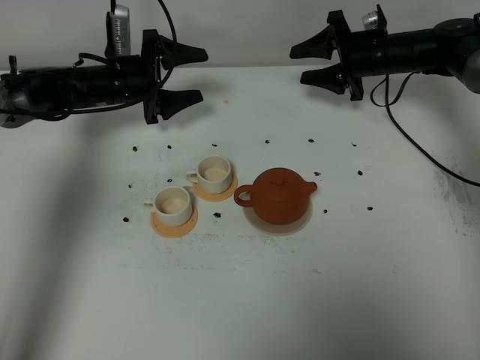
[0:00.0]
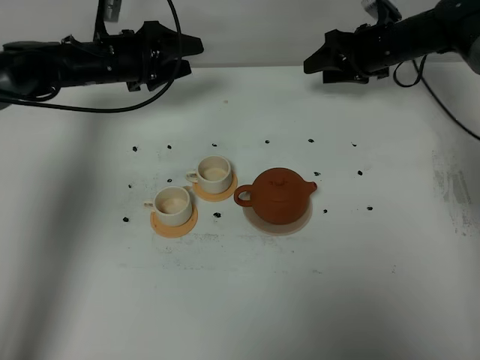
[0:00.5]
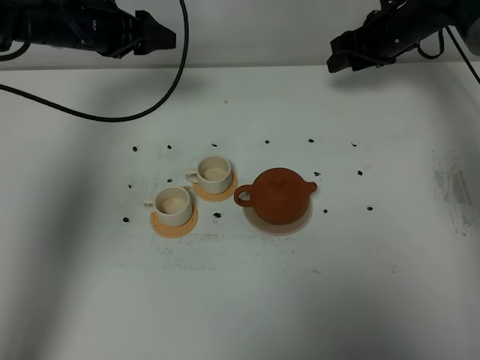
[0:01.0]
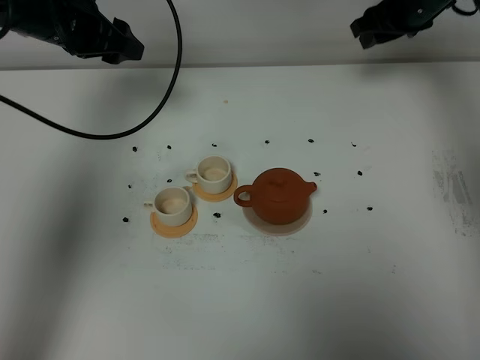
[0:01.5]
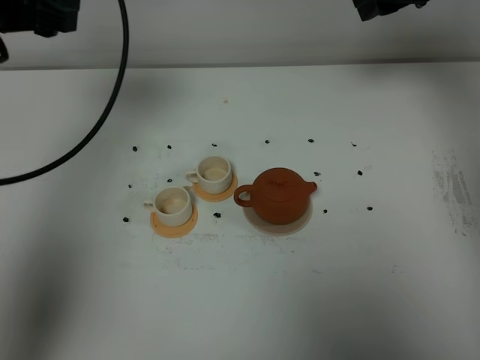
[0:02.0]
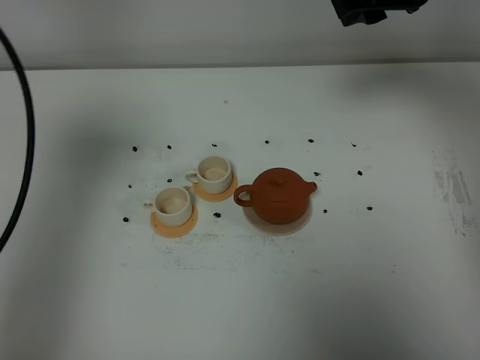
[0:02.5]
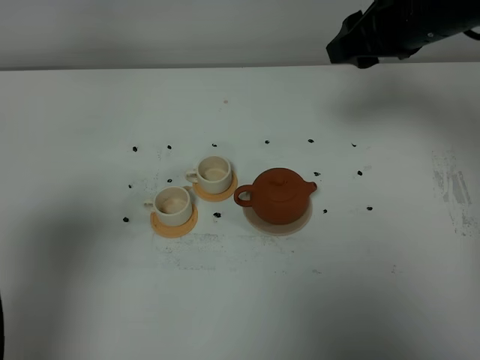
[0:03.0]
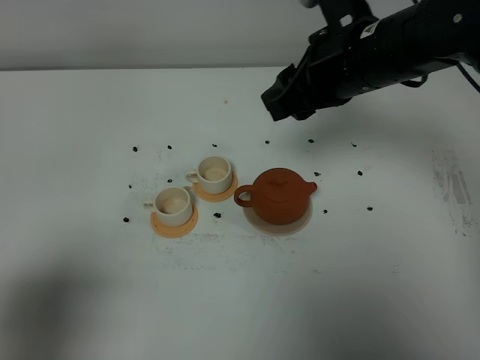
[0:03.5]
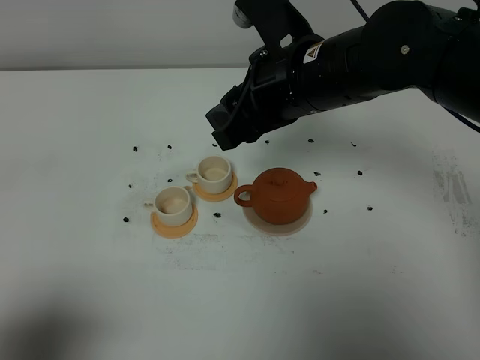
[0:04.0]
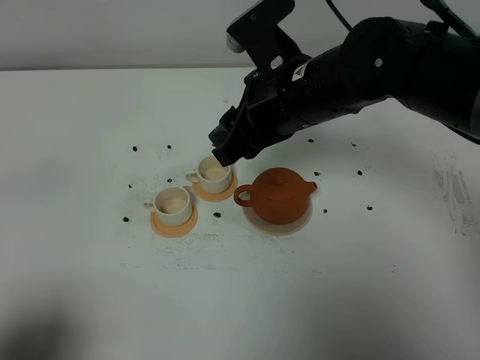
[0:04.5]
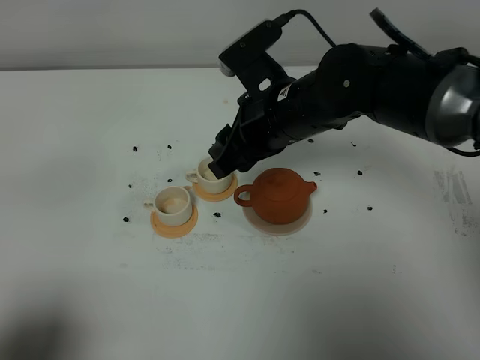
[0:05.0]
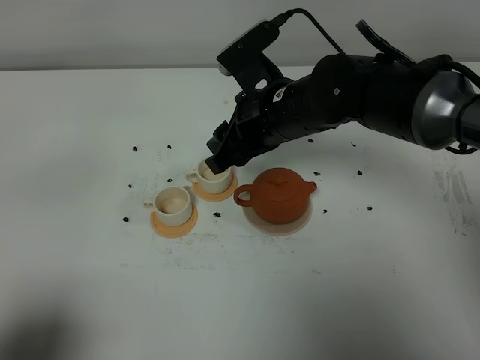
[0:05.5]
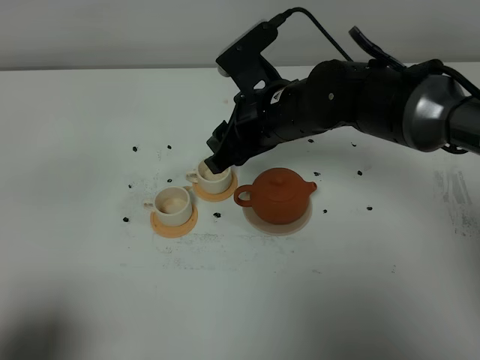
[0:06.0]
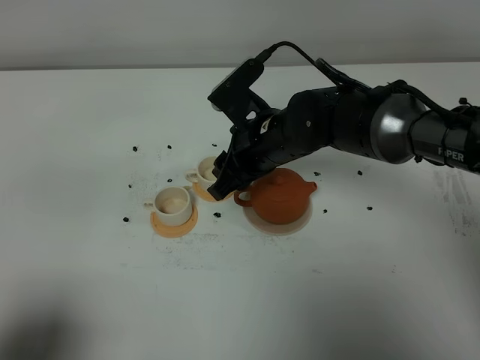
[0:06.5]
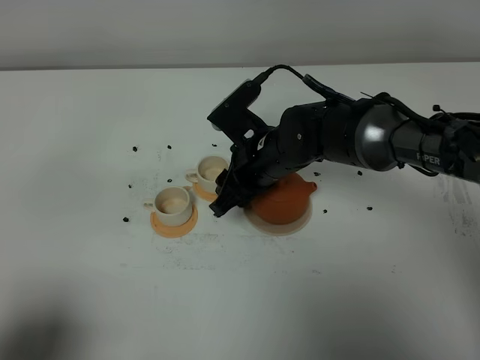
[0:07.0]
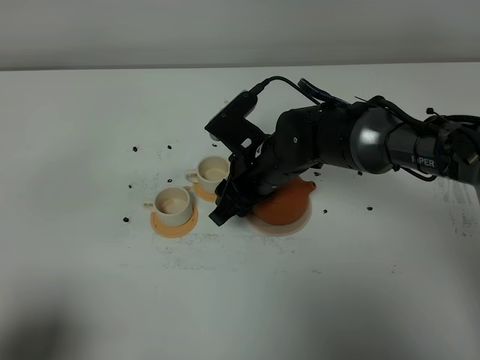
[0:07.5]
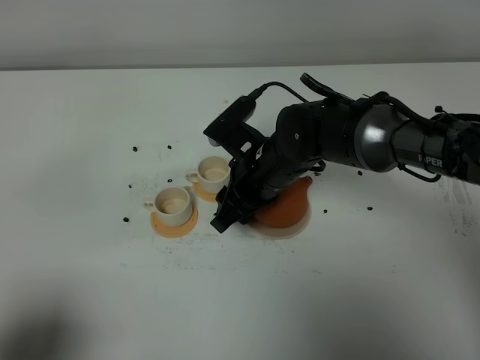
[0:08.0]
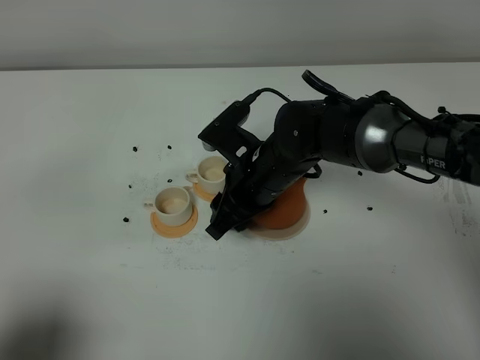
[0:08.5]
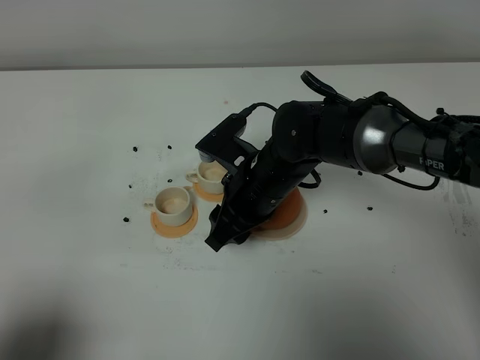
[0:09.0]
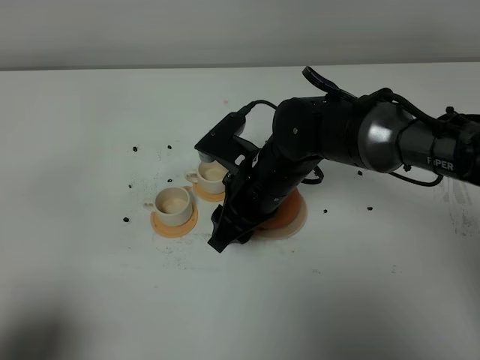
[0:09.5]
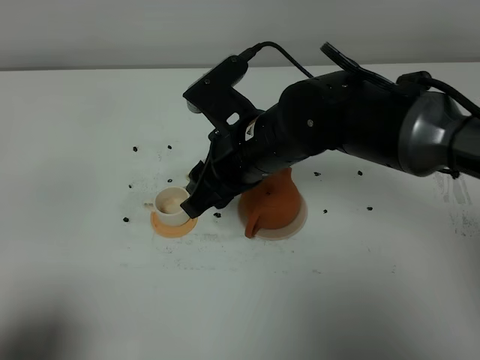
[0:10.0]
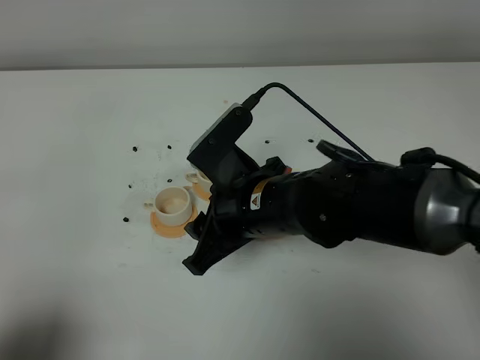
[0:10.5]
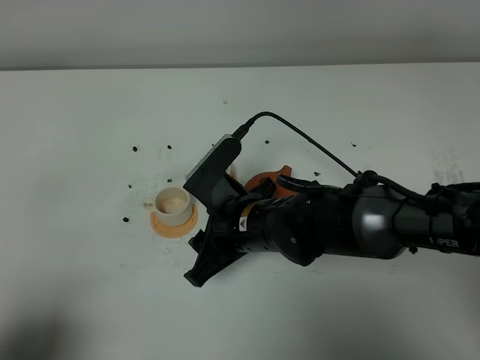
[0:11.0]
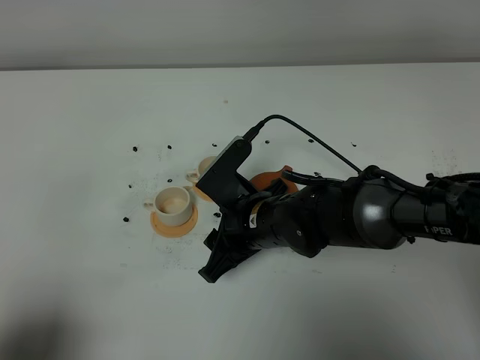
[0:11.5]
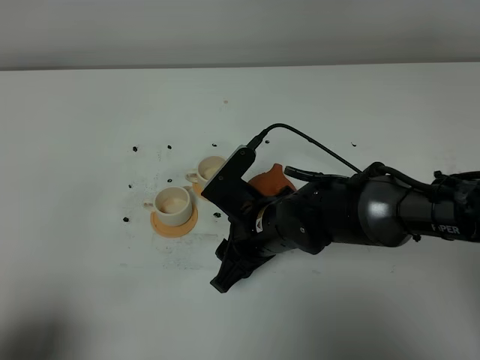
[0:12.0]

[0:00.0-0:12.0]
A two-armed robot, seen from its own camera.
Task of the whole recording: grasp the brown teapot and pour the tea into the two white teacups one by one, put the brown teapot back in its original place.
0:00.0 to 0:02.0: The right gripper is displaced upward by approximately 20 cm, while the left gripper heads upward and backward, covering roughly 30 cm.
0:02.0 to 0:04.0: The right gripper is displaced backward and to the left by roughly 20 cm; the left gripper heads backward, covering some 35 cm, and closes up.
0:04.0 to 0:06.0: The right gripper goes about 10 cm downward.
0:06.0 to 0:08.0: The right gripper is displaced downward by about 5 cm.
0:08.0 to 0:10.0: The right gripper shifts approximately 10 cm upward.
0:10.0 to 0:12.0: The right gripper goes about 10 cm downward.

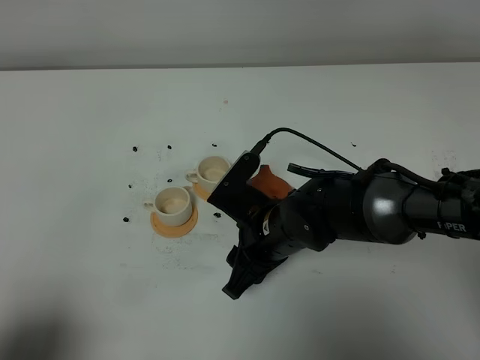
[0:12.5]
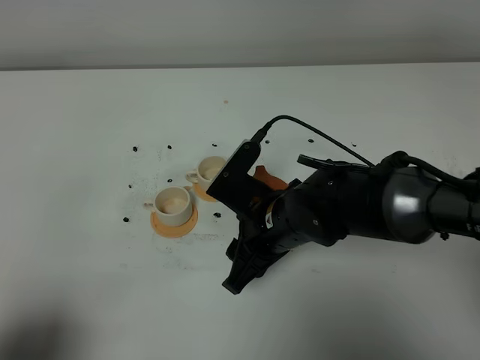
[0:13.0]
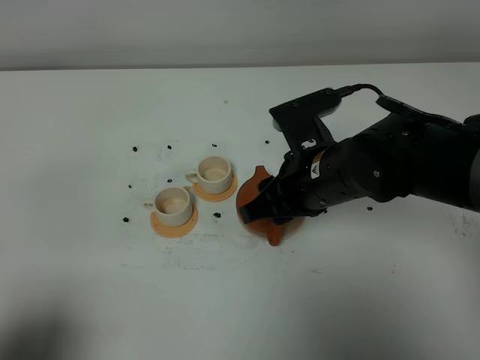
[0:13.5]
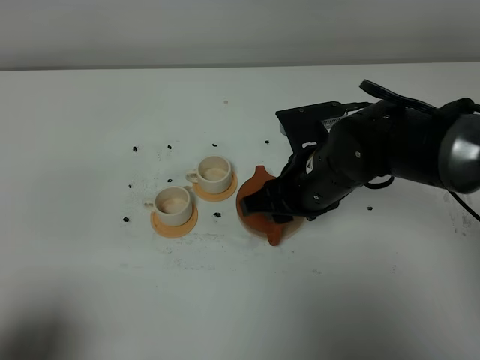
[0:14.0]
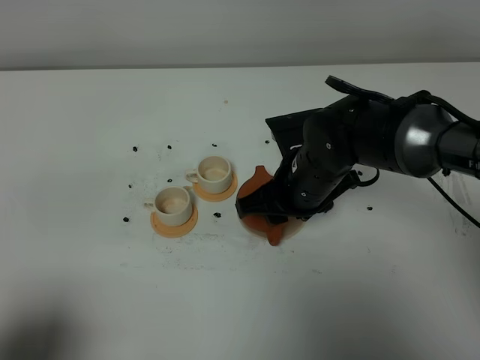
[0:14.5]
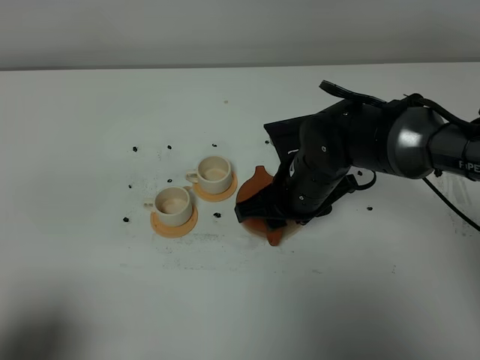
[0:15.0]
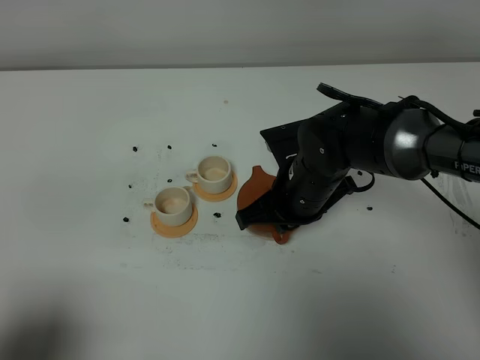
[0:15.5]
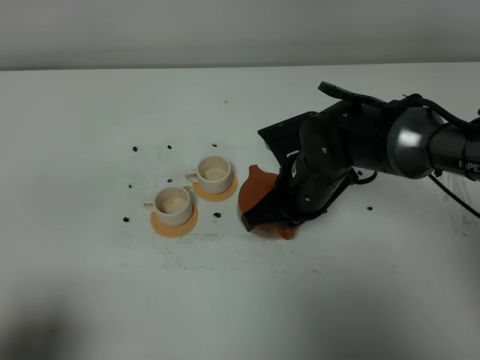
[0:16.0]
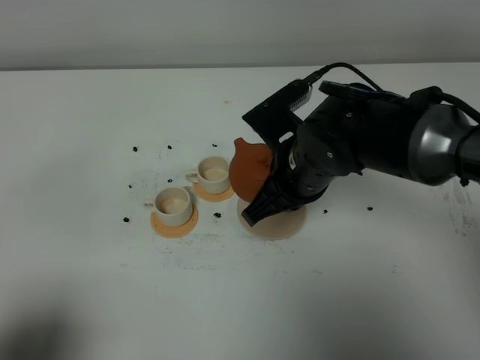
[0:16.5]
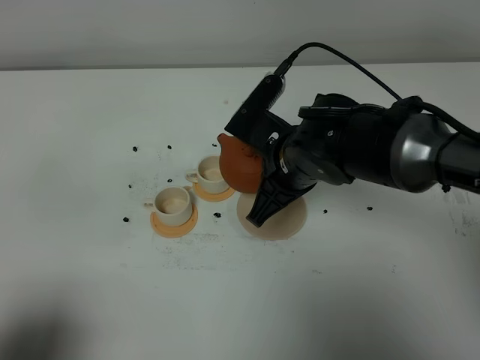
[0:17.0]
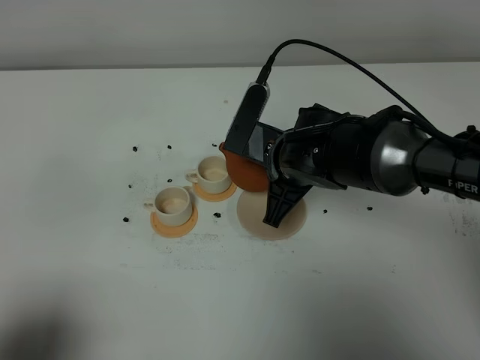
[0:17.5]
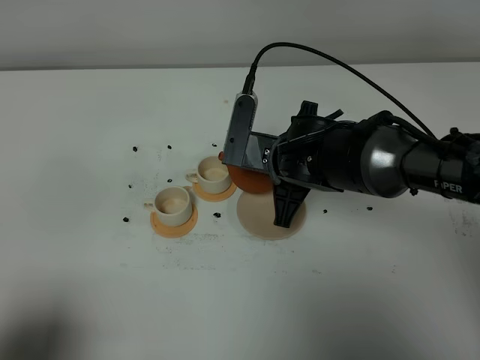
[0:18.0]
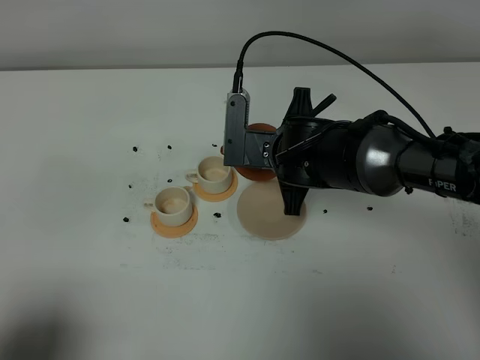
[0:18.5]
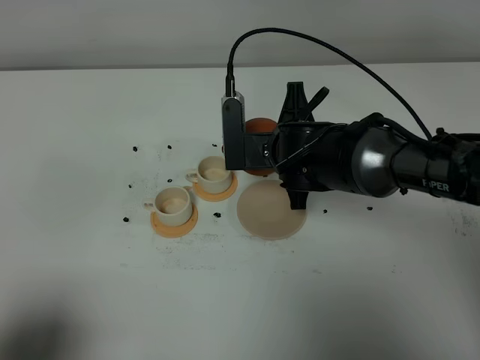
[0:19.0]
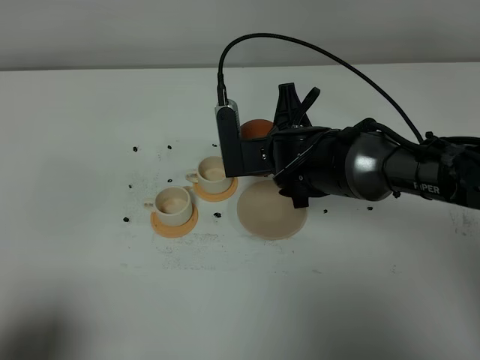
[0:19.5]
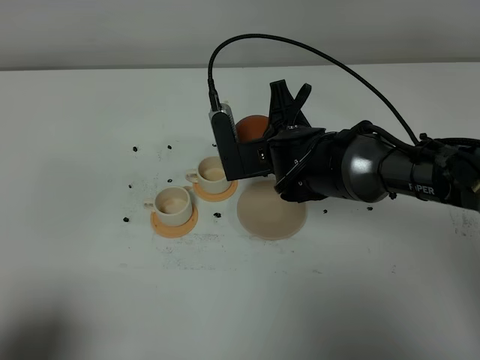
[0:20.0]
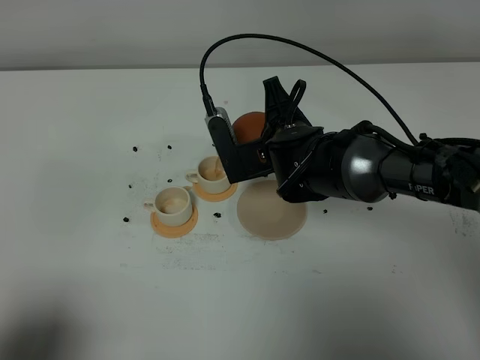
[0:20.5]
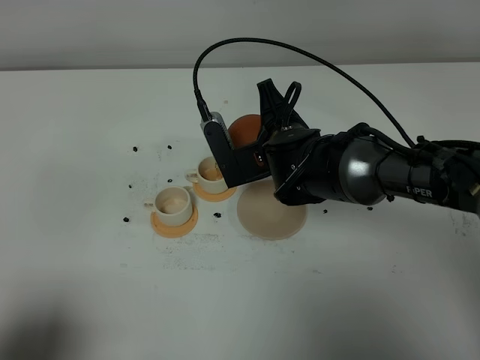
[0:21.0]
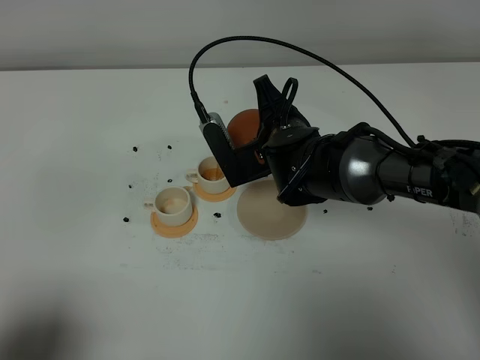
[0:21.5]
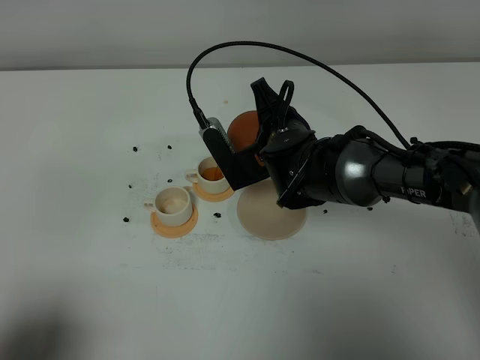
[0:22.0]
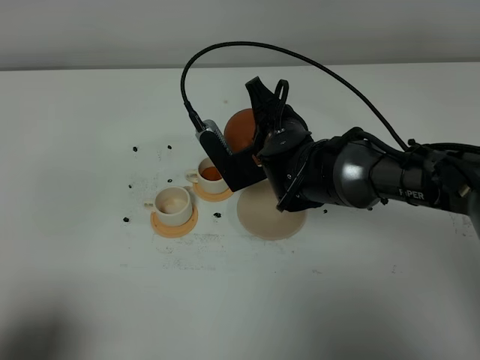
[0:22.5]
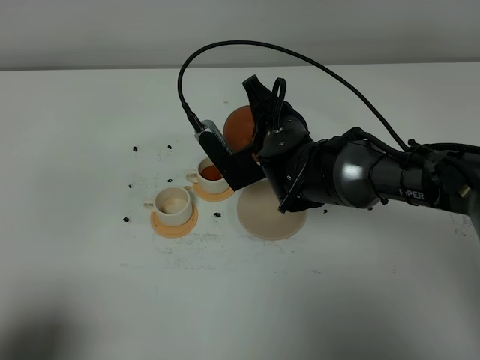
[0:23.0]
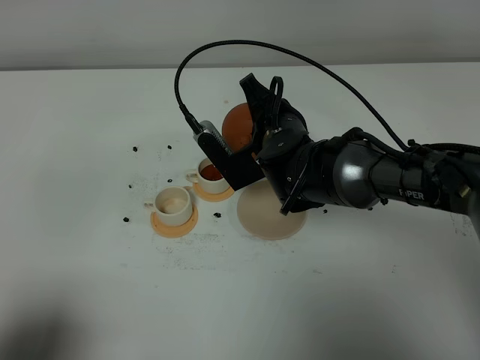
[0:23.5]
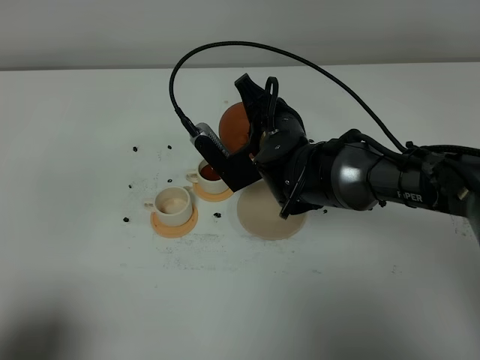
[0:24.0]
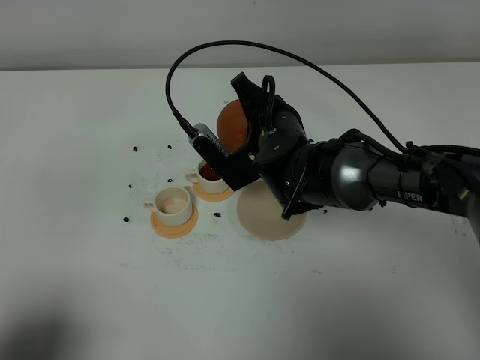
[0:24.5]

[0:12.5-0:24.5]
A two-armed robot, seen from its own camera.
Task of the whole recording: grasp the brown teapot and pour the tea into the two white teacups one by one, put the brown teapot back in its original place.
Step, 0:12.5 to 0:15.5: Pick up the teapot with the right gripper.
0:12.5 to 0:14.5: The right gripper heads forward, covering roughly 5 cm.
0:14.5 to 0:16.5: The right gripper closes.
0:16.5 to 0:18.5: The right gripper changes place by approximately 5 cm.
0:20.5 to 0:22.5: The grippers make only small movements.
0:22.5 to 0:24.5: The grippers make only small movements.

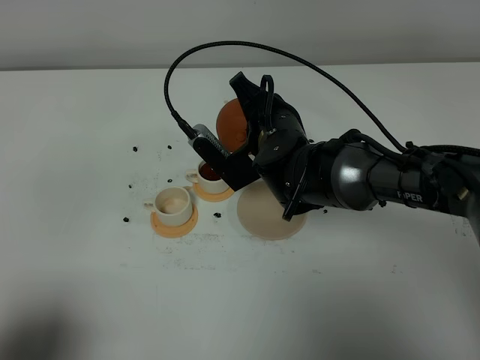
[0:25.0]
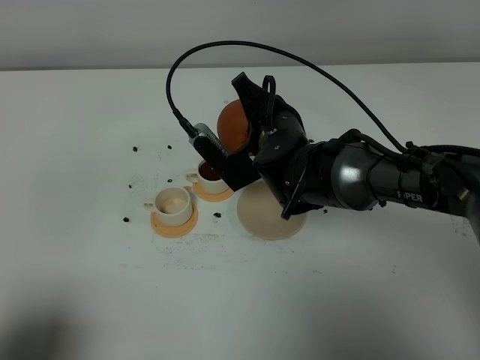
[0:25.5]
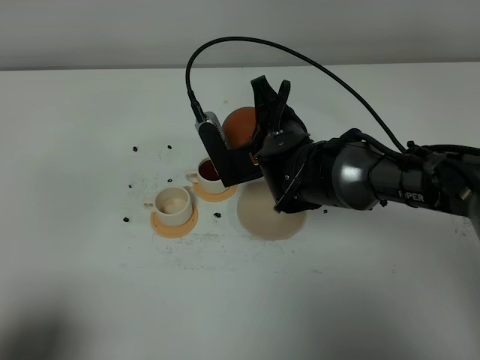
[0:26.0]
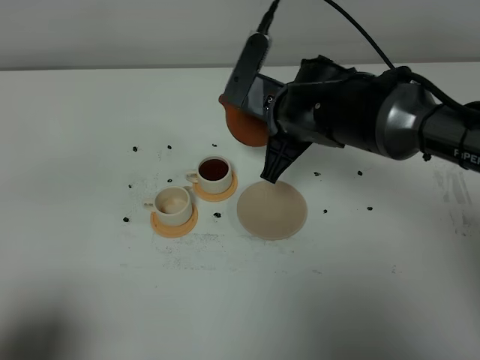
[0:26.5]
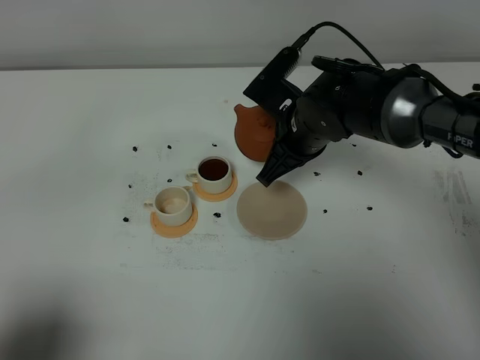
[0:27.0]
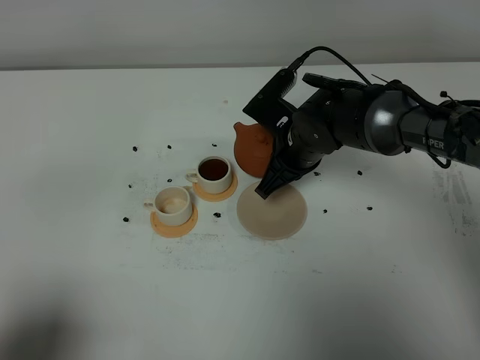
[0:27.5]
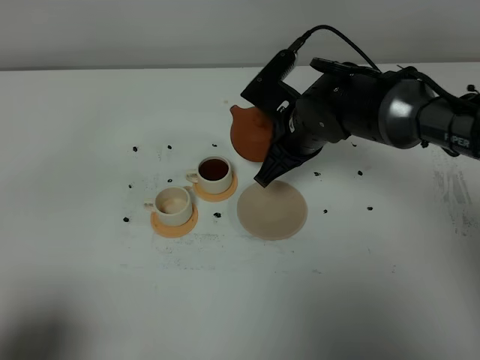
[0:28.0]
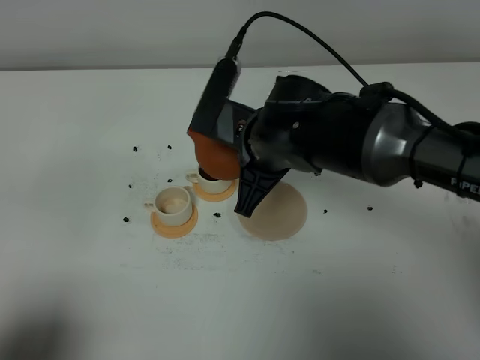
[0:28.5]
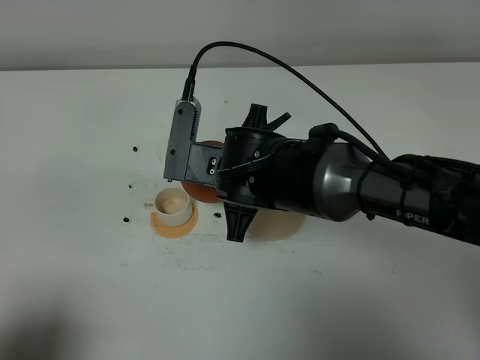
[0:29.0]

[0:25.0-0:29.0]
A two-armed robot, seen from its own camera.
Task of the whole recording: grasp the brown teapot and pour the tea into the two white teacups one by one, put the brown teapot back in its original place.
0:27.0 to 0:29.0: The right gripper is displaced backward and to the left by some 10 cm.
